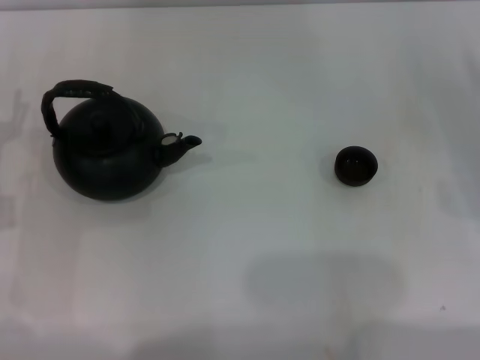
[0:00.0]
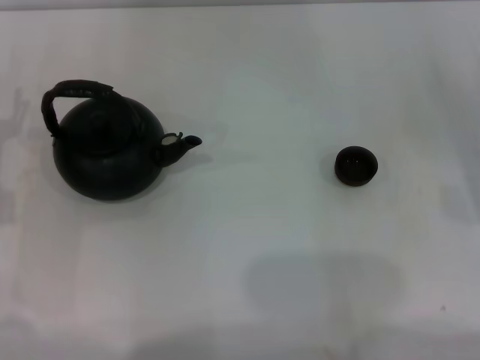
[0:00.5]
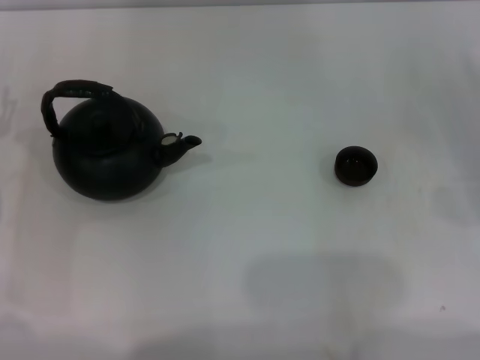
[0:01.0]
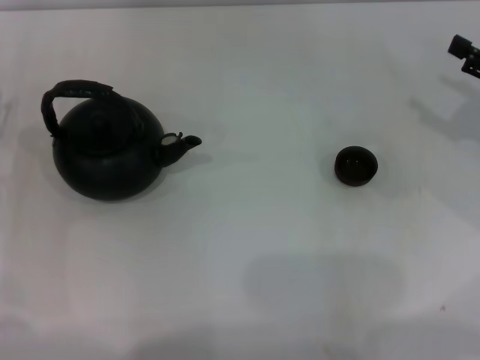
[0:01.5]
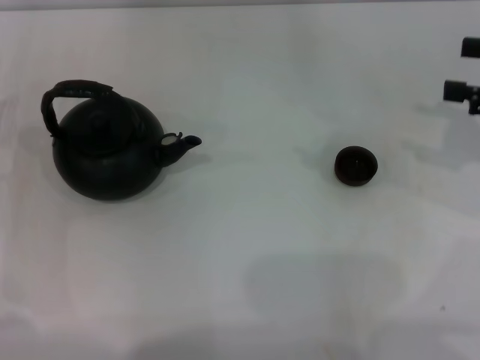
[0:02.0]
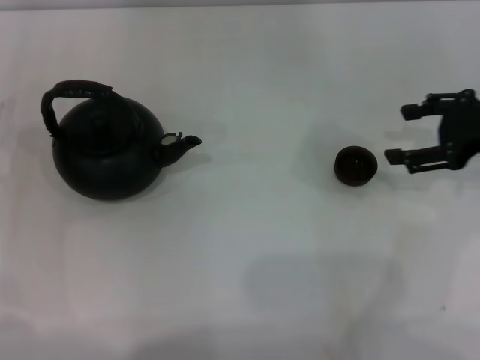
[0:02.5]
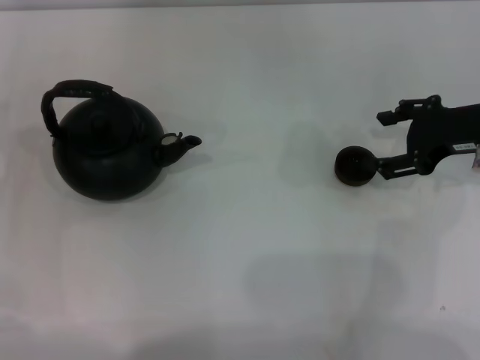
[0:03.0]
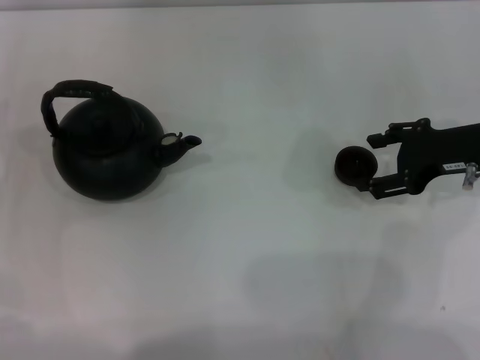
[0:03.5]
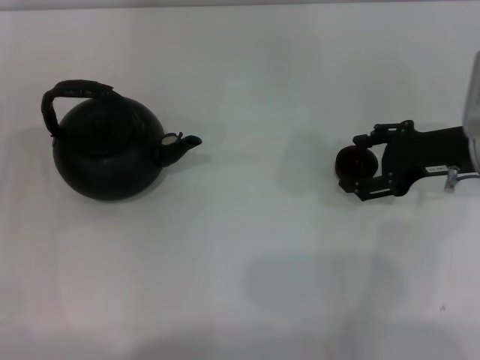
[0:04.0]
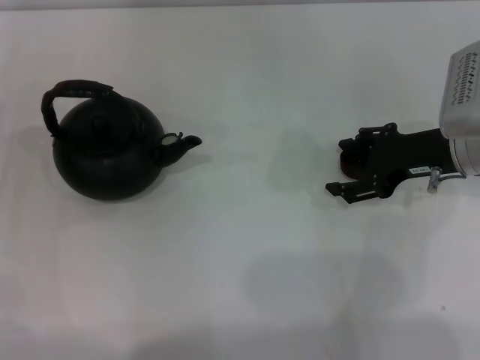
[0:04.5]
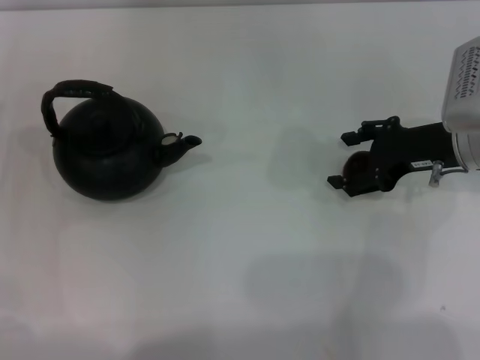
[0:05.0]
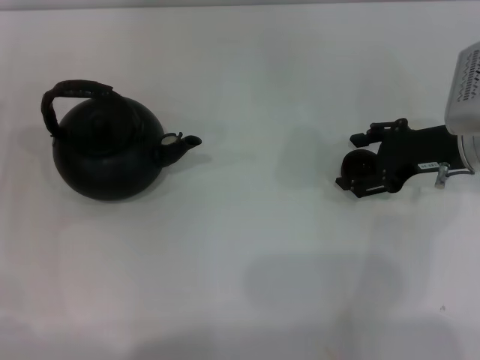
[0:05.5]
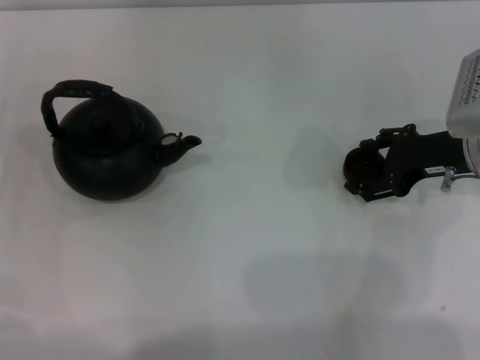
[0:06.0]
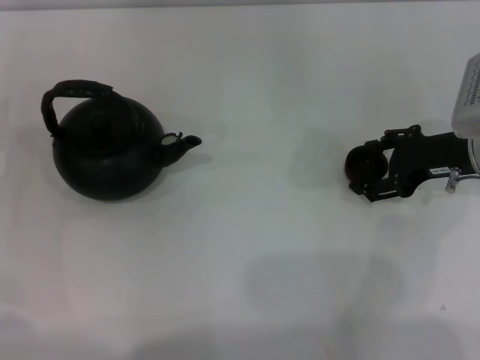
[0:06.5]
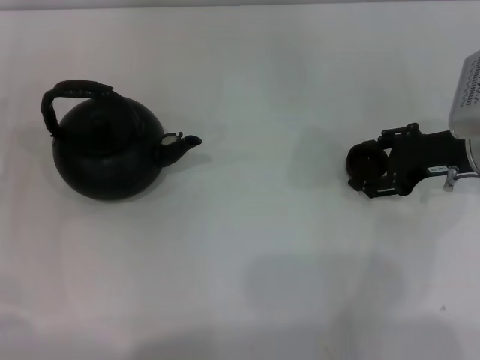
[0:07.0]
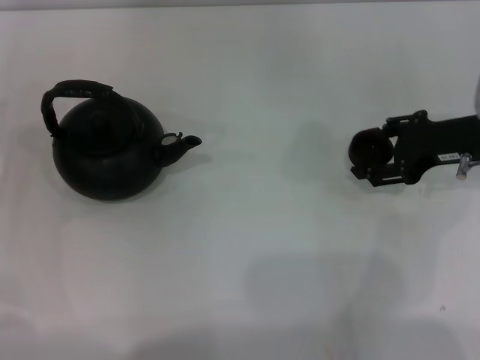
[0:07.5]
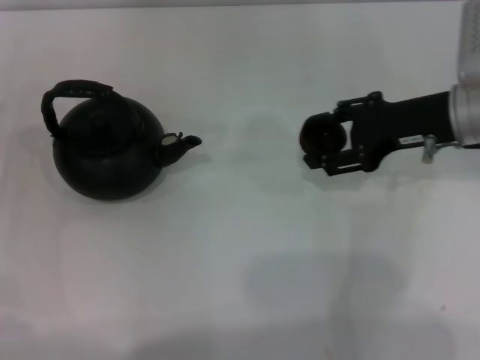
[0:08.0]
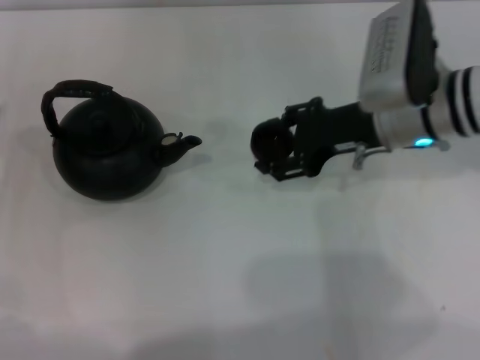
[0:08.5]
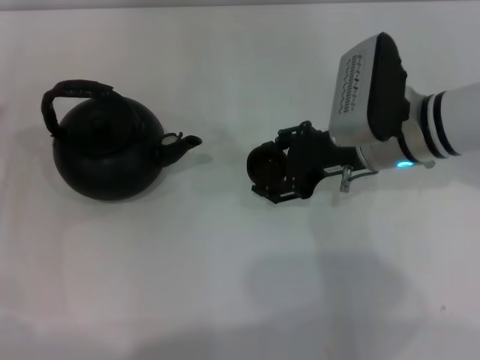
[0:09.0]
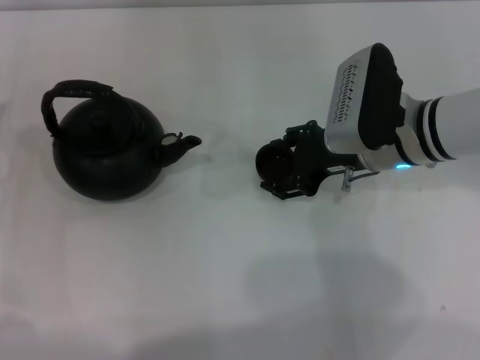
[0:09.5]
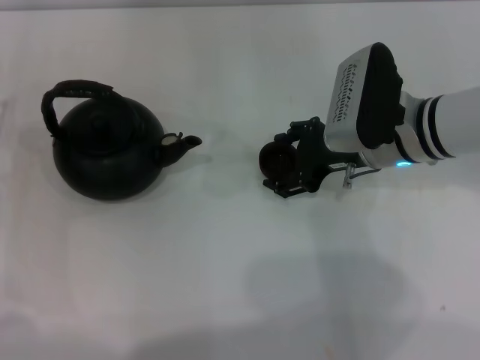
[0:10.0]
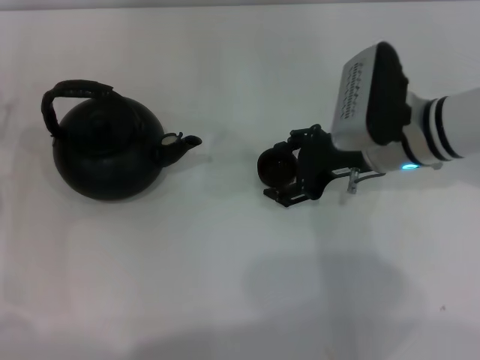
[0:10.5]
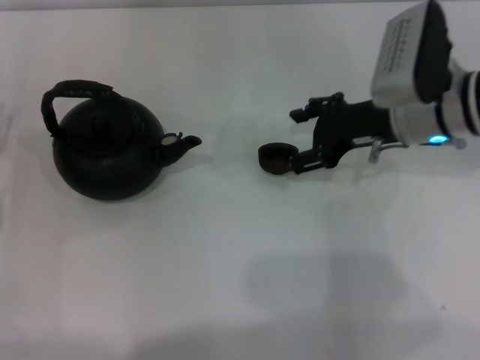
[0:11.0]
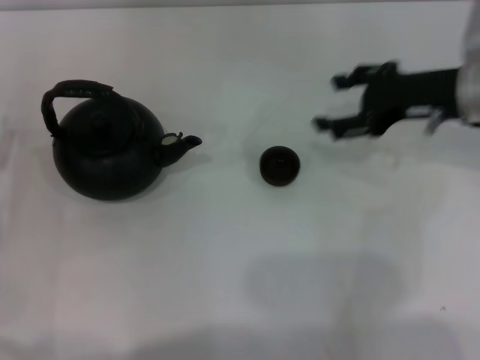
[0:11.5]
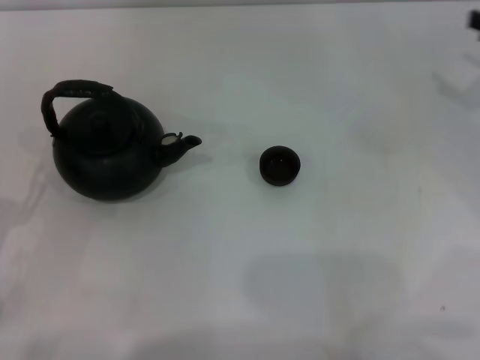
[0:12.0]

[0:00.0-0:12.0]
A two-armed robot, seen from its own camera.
Task of the whole recording: Grasp the handle of the teapot with one hand and pour tea into the teacup.
Step, 0:00.0 to 0:07.0: Pick up the teacup with the right gripper.
Step, 0:08.0 to 0:11.0: Place the teacup in the center of view with the right gripper.
0:00.0 to 0:02.0: The right gripper heads upward, covering about 15 cm.
0:02.0 to 0:04.0: The right gripper moves to the left and downward, about 15 cm.
0:04.0 to 0:06.0: The grippers make only small movements.
0:06.0 to 0:08.0: The right gripper shifts by approximately 5 cm, and closes its fingers.
0:08.0 to 0:10.0: The right gripper moves to the left, some 5 cm, and opens its fingers.
0:10.0 to 0:12.0: The right gripper shifts approximately 20 cm to the right, while the left gripper is displaced backward by some 10 cm.

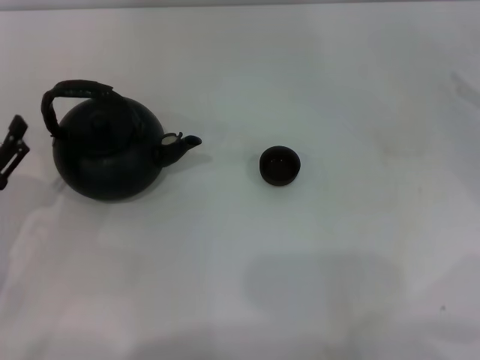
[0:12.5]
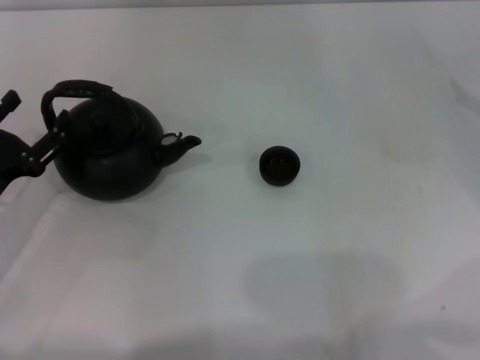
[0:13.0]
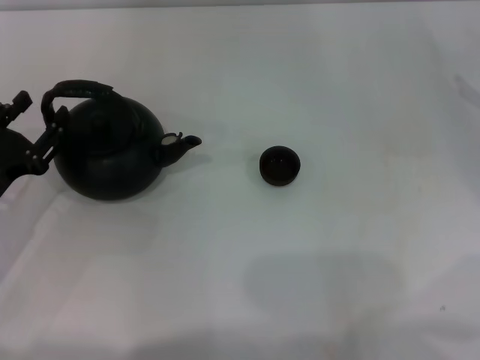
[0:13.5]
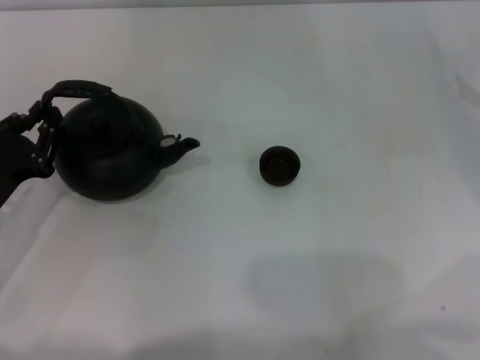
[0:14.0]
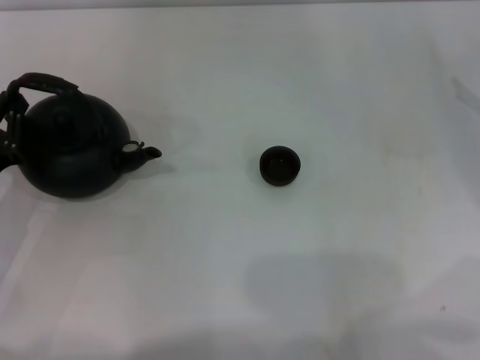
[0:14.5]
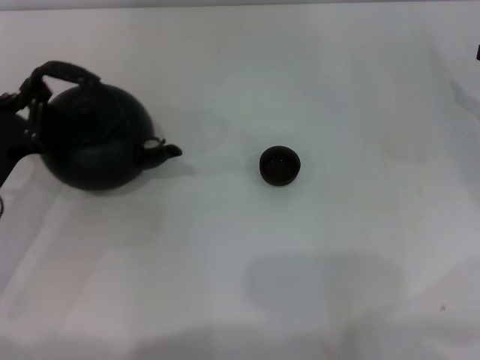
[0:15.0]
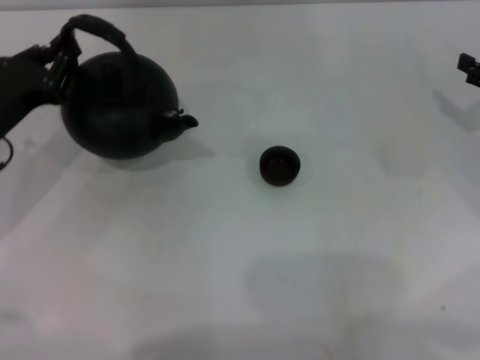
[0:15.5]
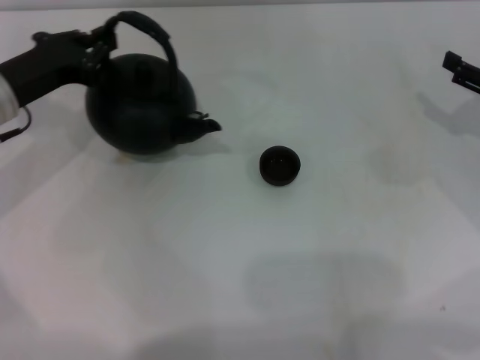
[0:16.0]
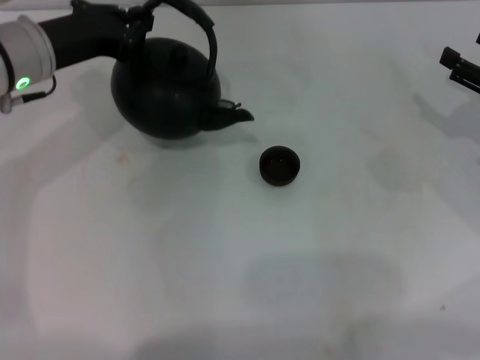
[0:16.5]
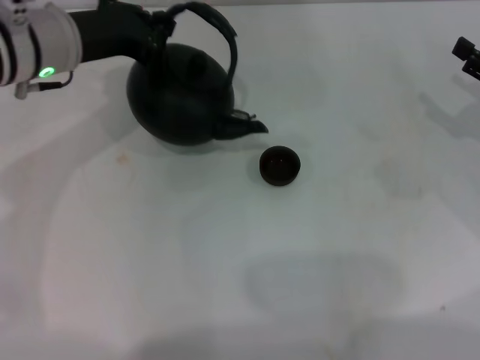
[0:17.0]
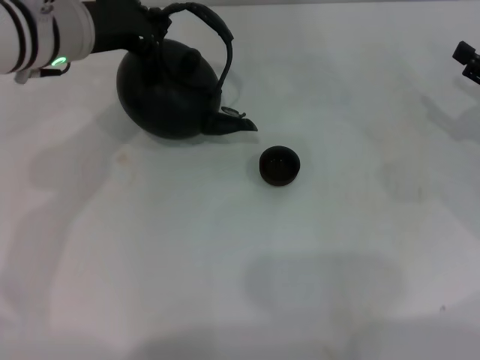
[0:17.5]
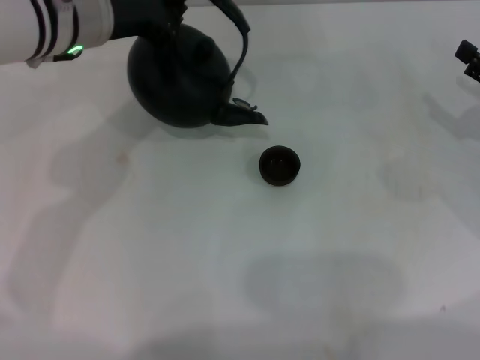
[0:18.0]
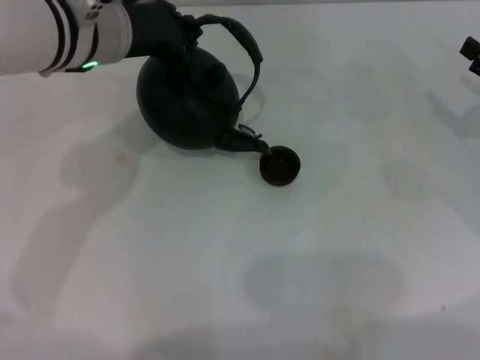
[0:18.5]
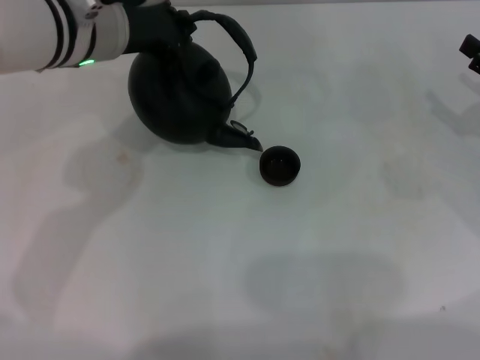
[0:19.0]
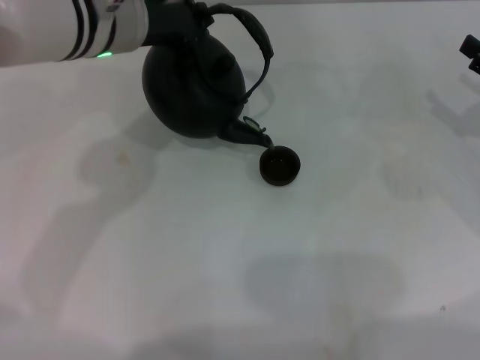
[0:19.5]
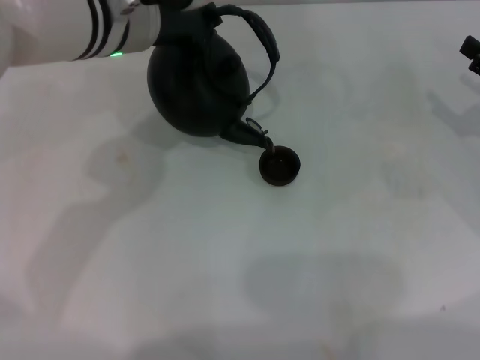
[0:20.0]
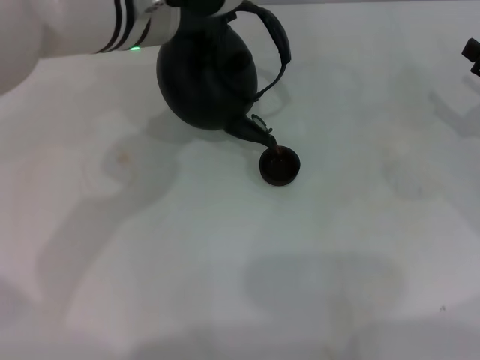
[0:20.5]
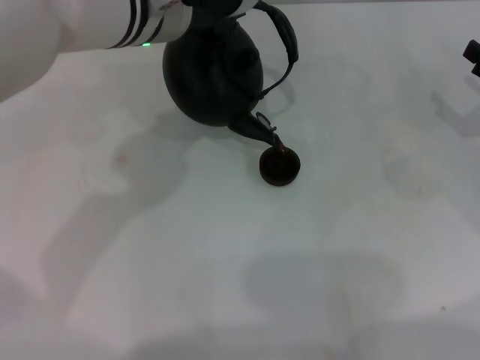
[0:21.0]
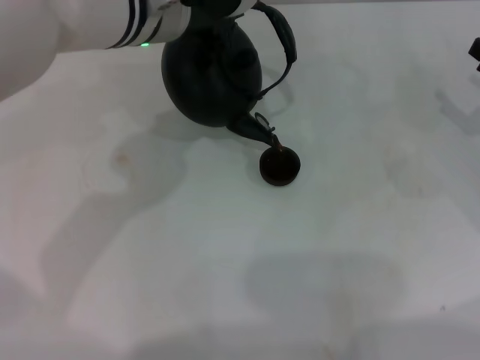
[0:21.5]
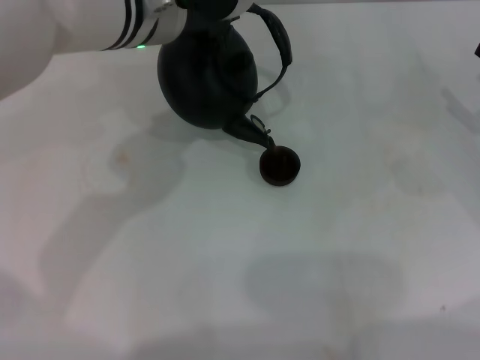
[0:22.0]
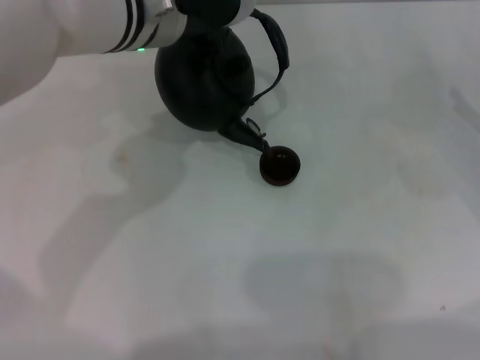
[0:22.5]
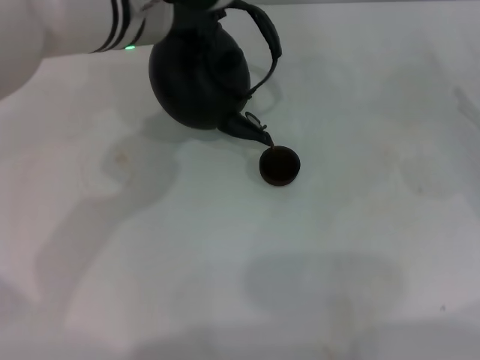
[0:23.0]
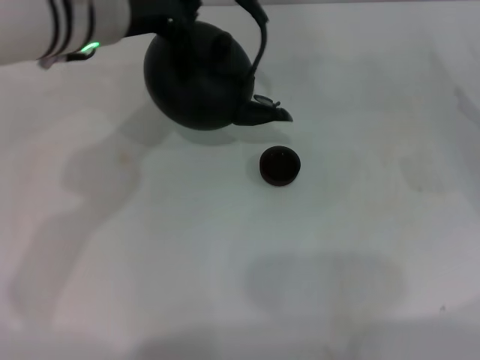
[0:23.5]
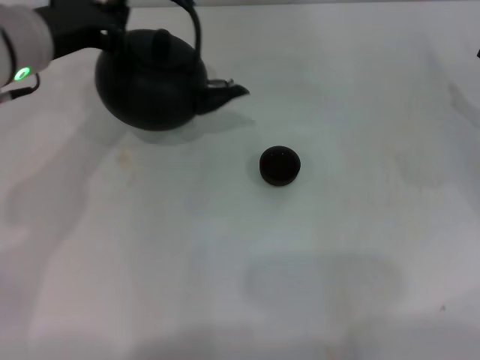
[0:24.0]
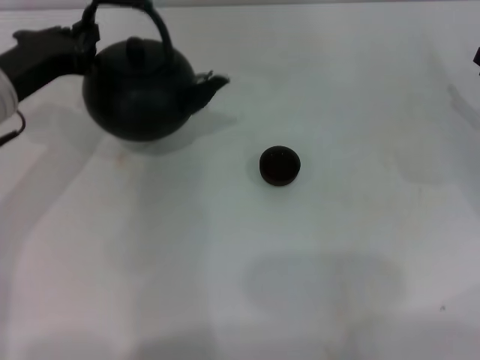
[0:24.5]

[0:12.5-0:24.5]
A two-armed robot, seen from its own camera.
Task of the whole recording: Grasp the handle of the teapot with one hand and pour tea into the teacup.
Step, 0:12.5 to 0:16.5: Pick up the teapot with the left gripper.
Step, 0:17.0 to 0:23.5: Pour tea into the teacup with the left gripper.
0:12.5 to 0:14.5: The left gripper closes.
0:14.5 to 0:16.5: The left gripper moves forward, upward and to the right, some 20 cm.
0:16.5 to 0:18.5: The left gripper shifts about 10 cm to the right.
0:18.5 to 0:22.5: The grippers make only small movements.
0:22.5 to 0:24.5: The left gripper travels to the left and downward by approximately 15 cm.

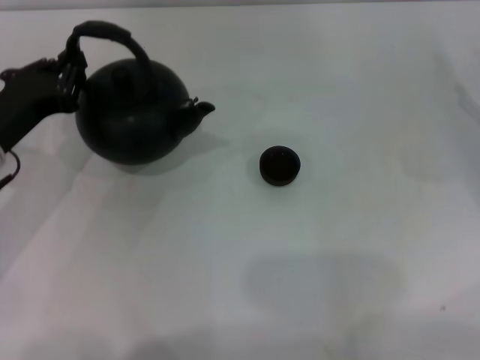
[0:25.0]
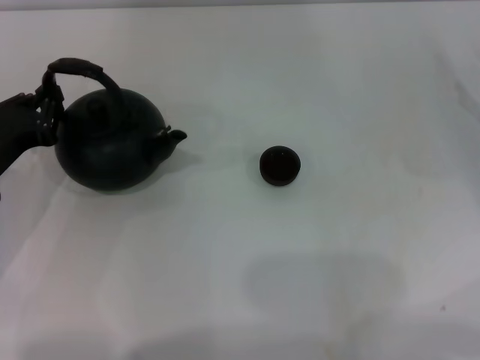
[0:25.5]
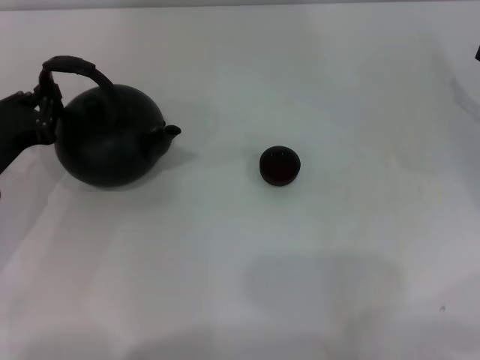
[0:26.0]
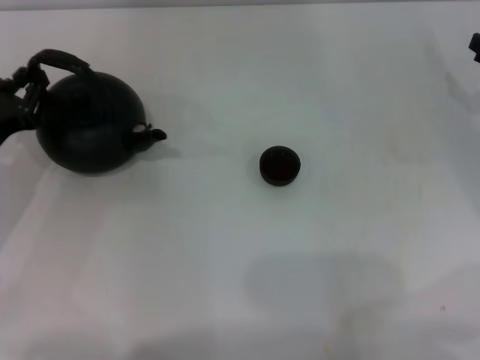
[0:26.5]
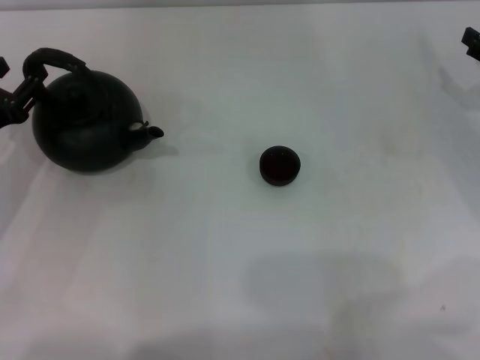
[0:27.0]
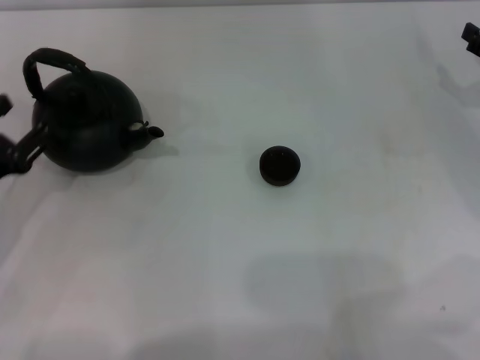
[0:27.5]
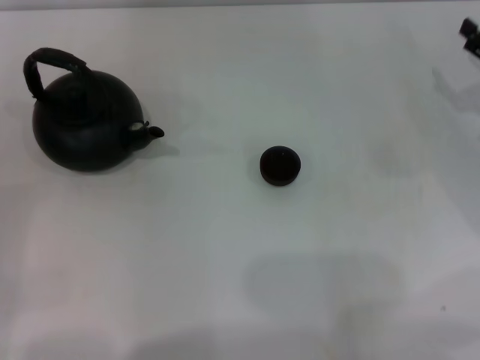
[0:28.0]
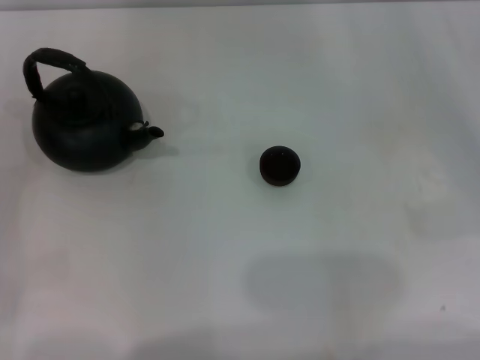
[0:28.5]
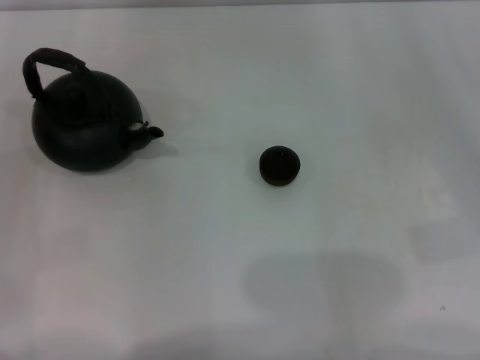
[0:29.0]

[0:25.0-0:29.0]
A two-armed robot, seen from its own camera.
Task of the whole recording: Grasp the handle of the teapot with one hand and pour tea into the teacup.
Step, 0:25.0 to 0:27.0: Put down the teapot with the left gripper.
0:25.0 to 0:27.0: The left gripper shifts by about 5 cm, and opens its fingers.
0:27.0 to 0:29.0: The left gripper shifts approximately 10 cm backward and to the left, and opens its fingers.
